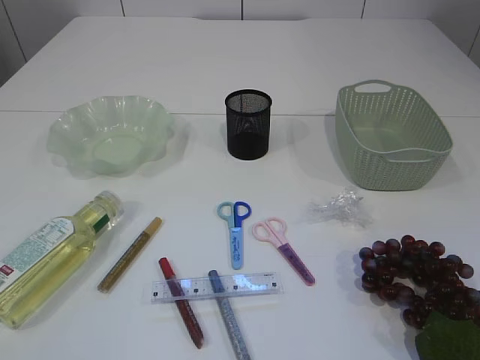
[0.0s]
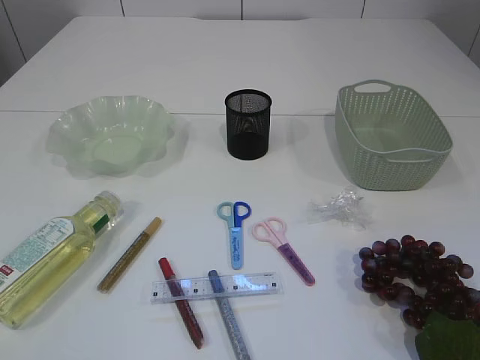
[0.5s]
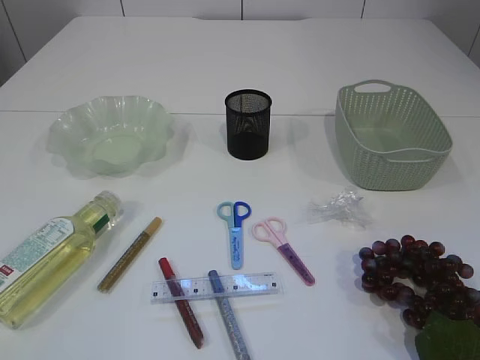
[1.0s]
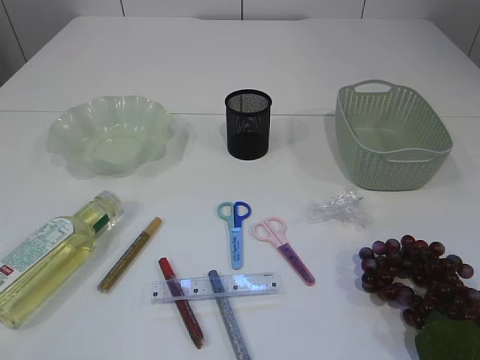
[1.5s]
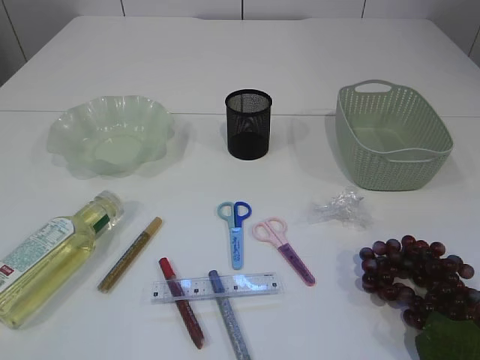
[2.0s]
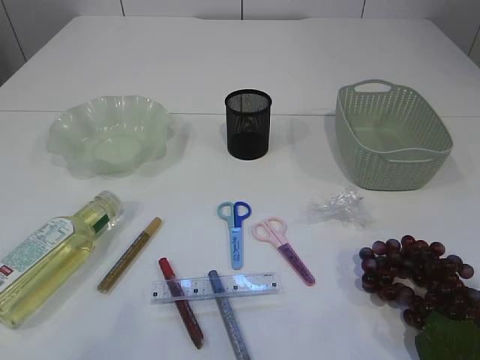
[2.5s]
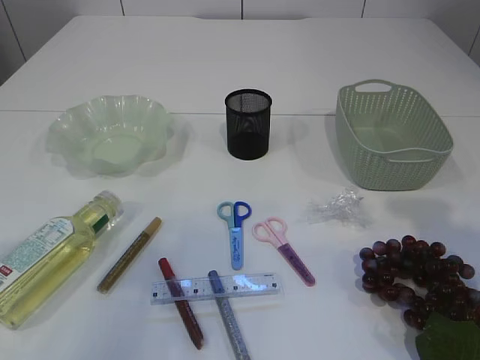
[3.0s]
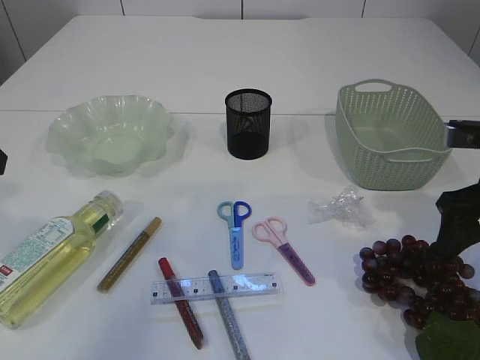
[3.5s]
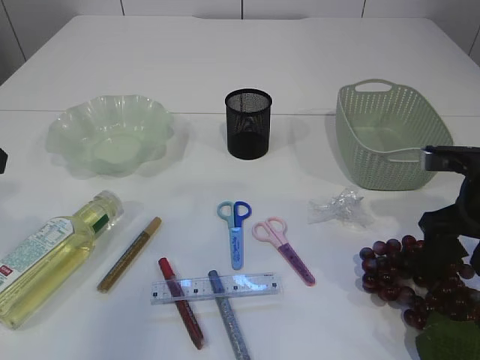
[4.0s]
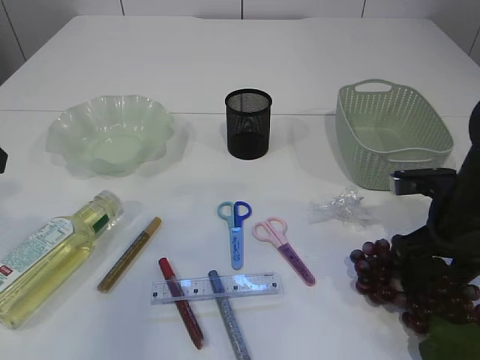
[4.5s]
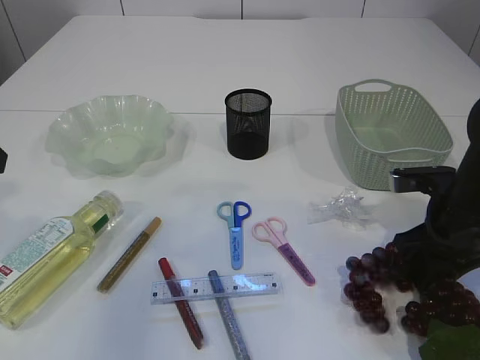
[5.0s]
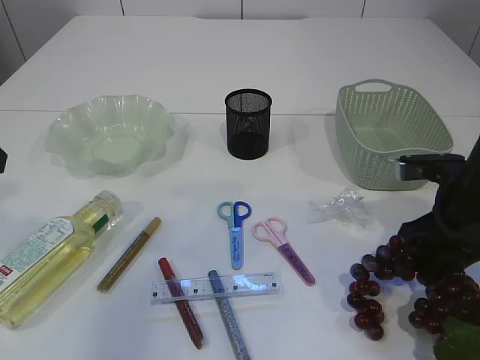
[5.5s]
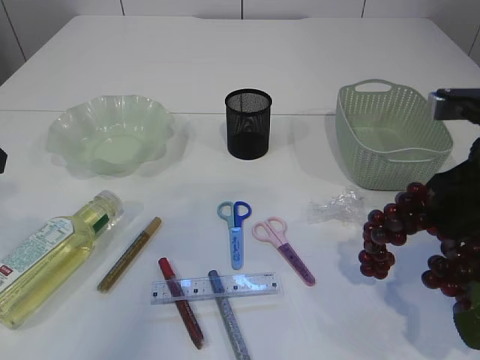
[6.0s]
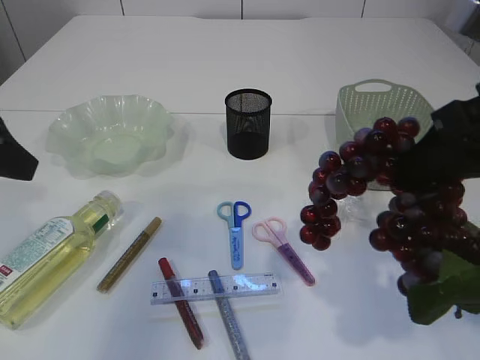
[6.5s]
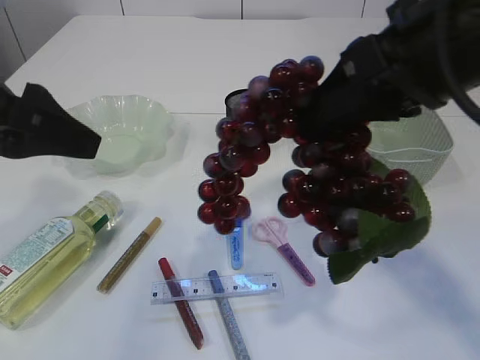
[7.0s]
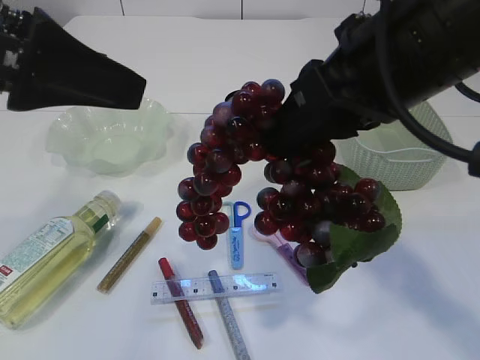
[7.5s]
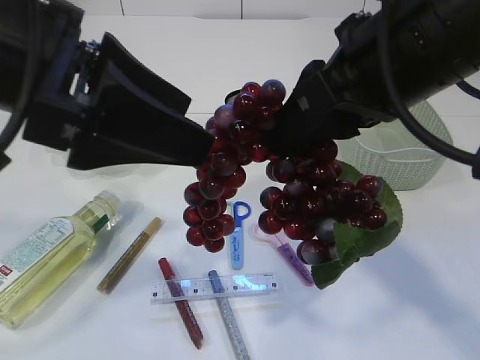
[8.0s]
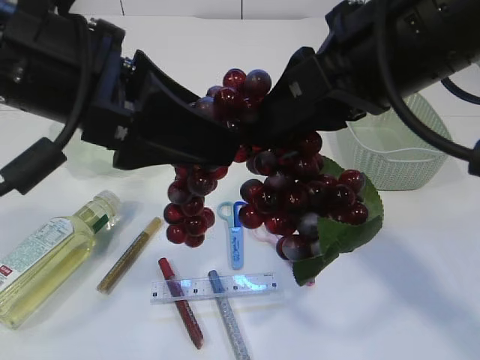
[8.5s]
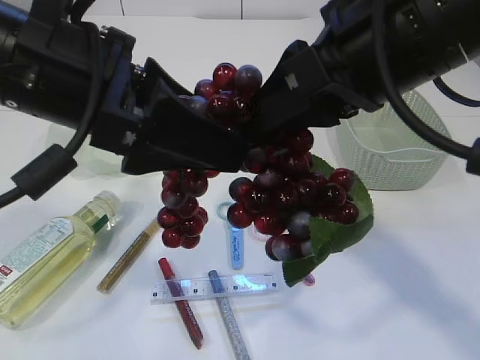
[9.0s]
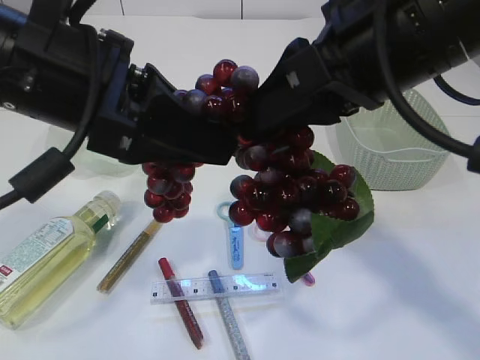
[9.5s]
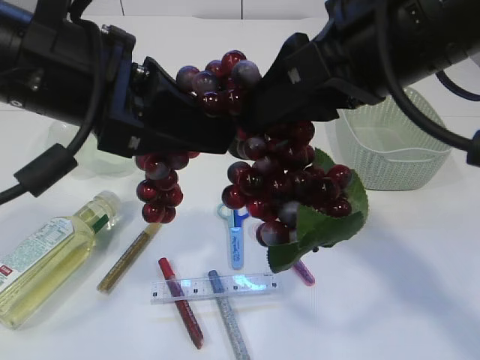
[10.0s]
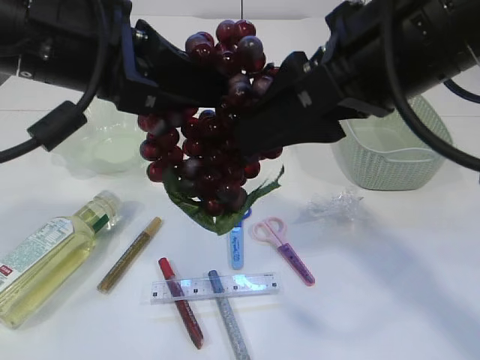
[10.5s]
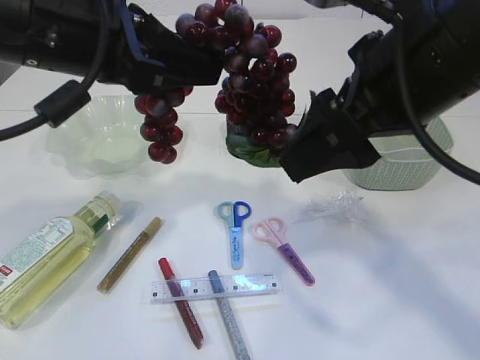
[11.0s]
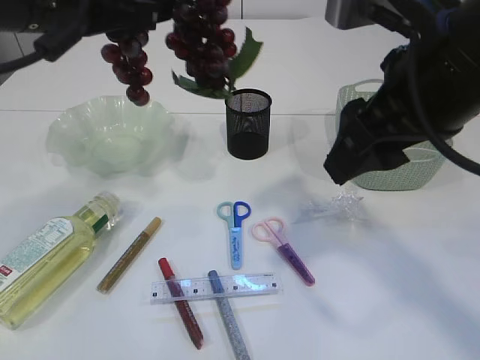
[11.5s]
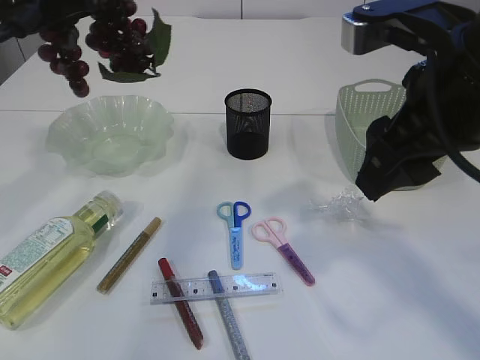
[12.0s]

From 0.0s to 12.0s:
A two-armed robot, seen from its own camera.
Step, from 0.0s to 6.0s: Pick up the grapes.
Step, from 6.5s to 11.0s: Hand over the grapes.
From 2.0s to 4.0s: The grippers both shift forward by approximately 30 cm.
From 4.0s to 6.0s: The right gripper moves upward, approximately 5 cm, and closes up.
From 6.0s to 8.0s: The left gripper shifts about 15 cm to the right, while the right gripper heads to the left and upward, covering approximately 15 cm.
From 8.0s to 10.0s: The left gripper closes up.
From 10.0s to 12.0s: The right gripper shifts by approximately 5 cm. The left gripper heads forward and to the left, covering approximately 15 cm.

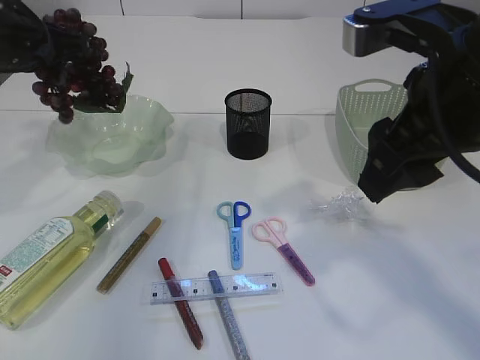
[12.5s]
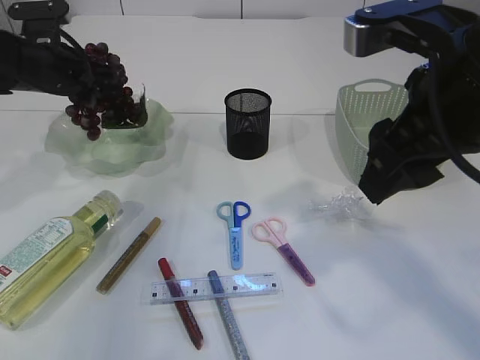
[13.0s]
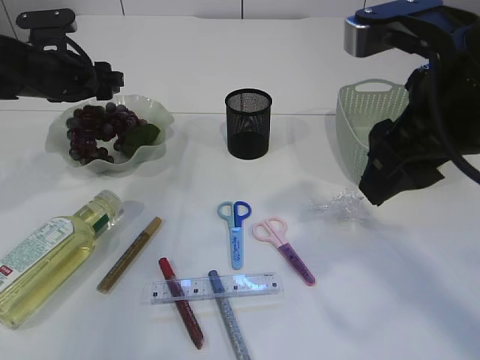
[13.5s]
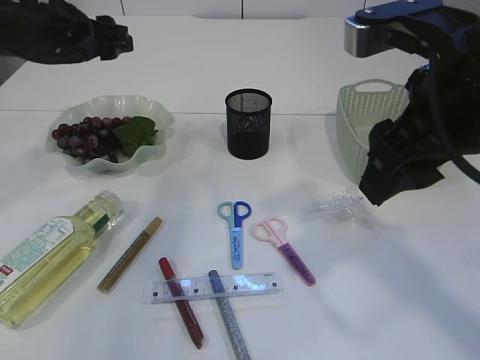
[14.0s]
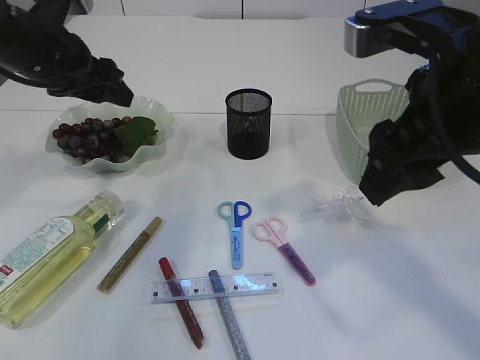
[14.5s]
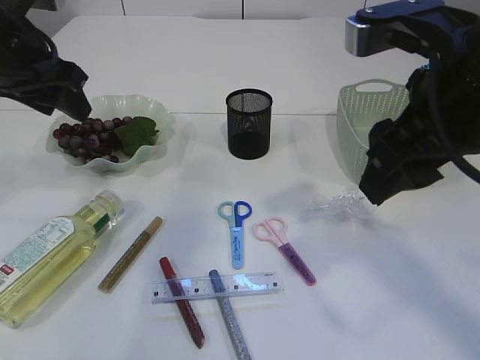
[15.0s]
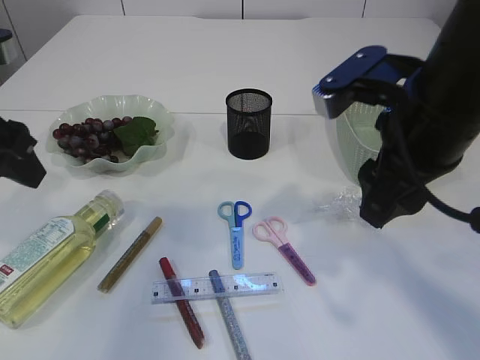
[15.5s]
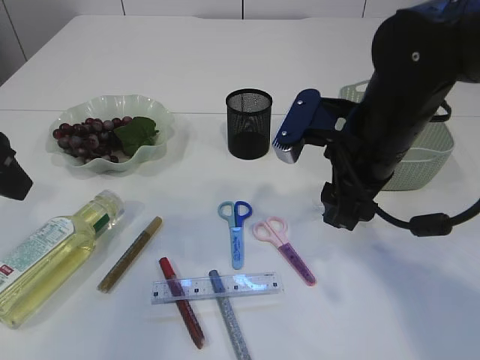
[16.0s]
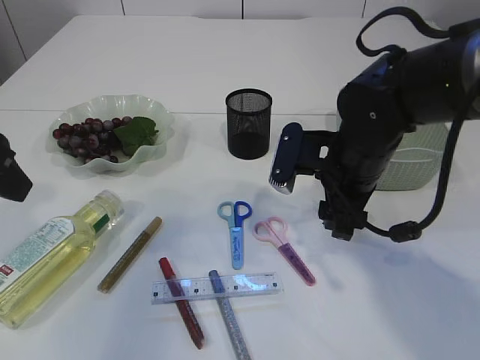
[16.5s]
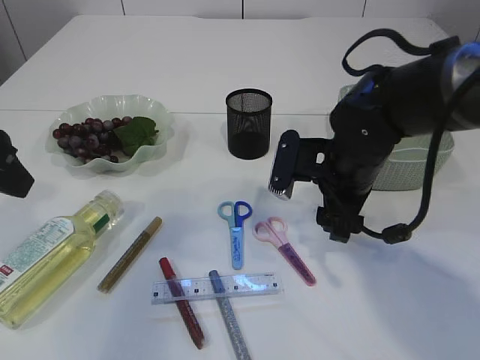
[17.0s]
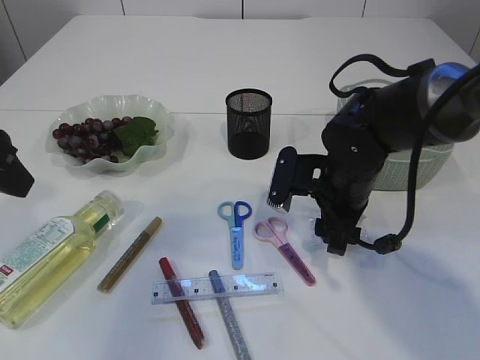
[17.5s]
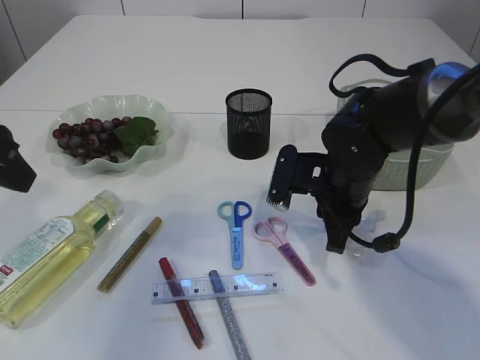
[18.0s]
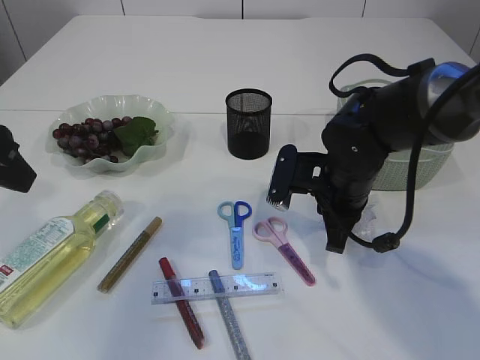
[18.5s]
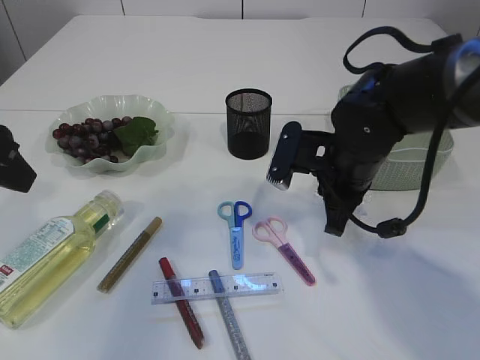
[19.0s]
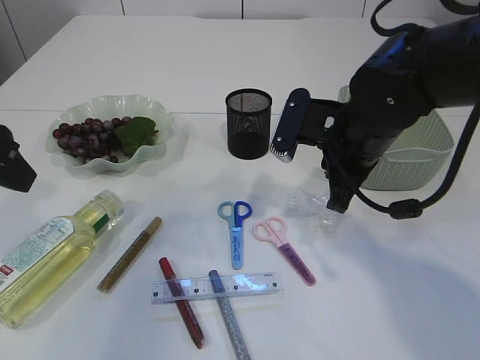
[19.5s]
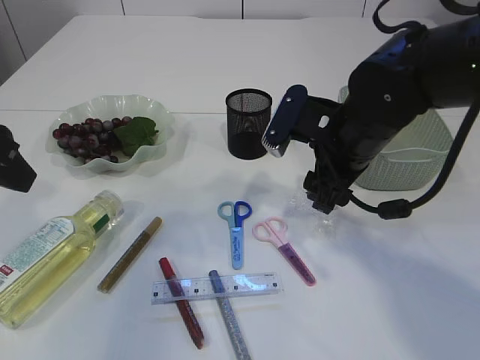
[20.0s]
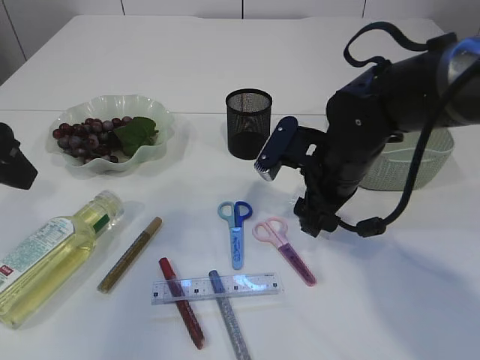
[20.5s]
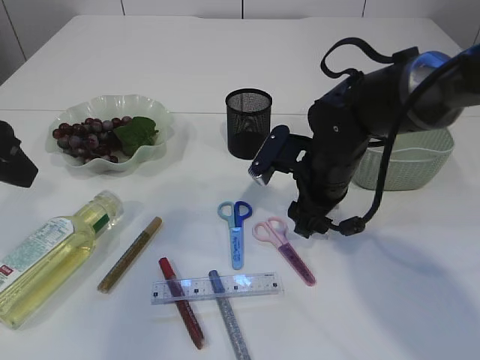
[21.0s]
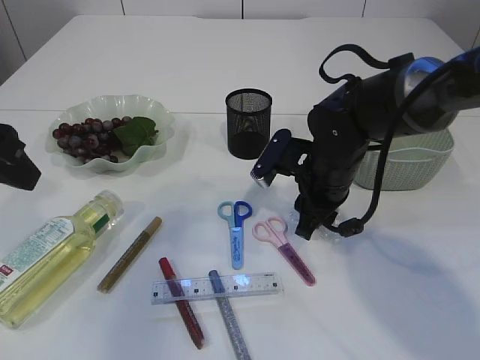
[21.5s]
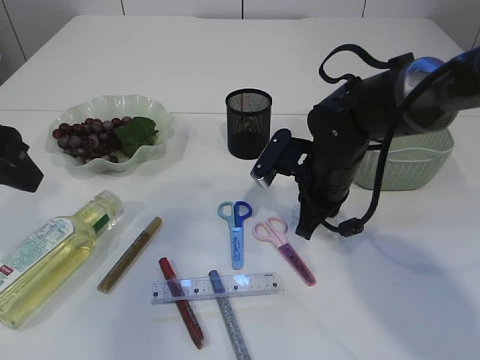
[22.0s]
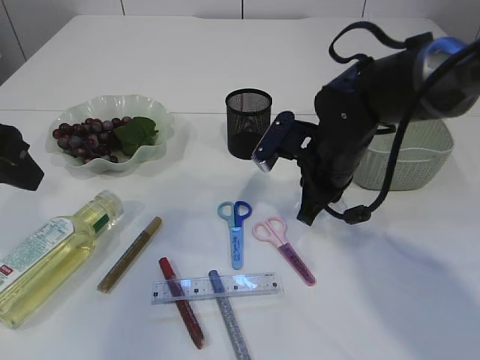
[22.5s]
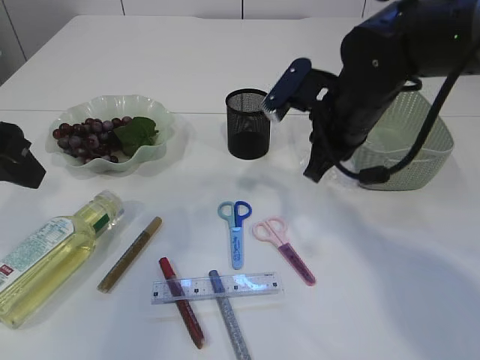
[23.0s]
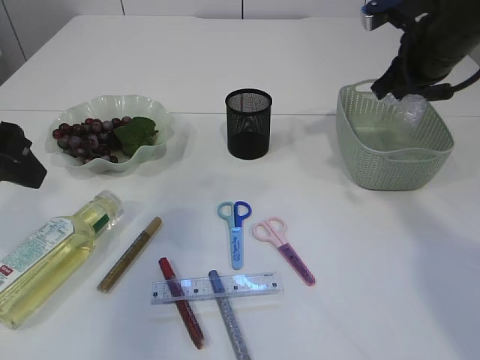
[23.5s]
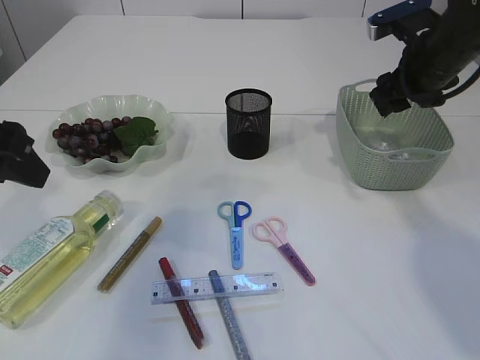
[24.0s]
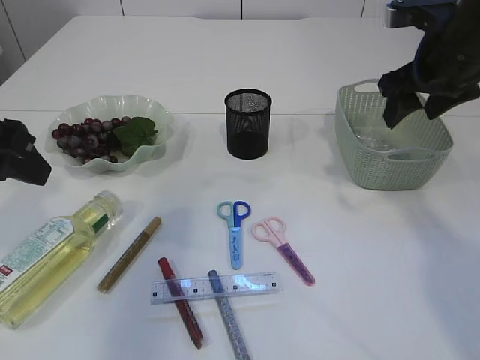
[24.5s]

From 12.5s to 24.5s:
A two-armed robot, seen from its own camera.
Step, from 12.5s to 14.0s: Place the grapes in the plate.
Step, from 14.5s to 22.5s: Pick up the plastic.
From 12.5s to 14.5s: The left gripper opens its fingers.
From 14.5s to 16.5s: The left gripper shifts approximately 15 cm backward; the right gripper goes roughly 20 cm downward and forward.
From 16.5s to 18.5s: The right gripper closes its fingers.
From 18.5s to 20.5s: The right gripper opens its fingers.
From 20.5s to 22.5s: The right gripper closes its fingers.
From 22.5s to 24.5s: The right gripper is displaced to the right and upward by roughly 15 cm, and opens its fingers.

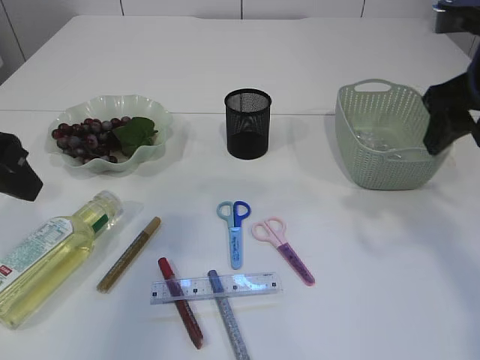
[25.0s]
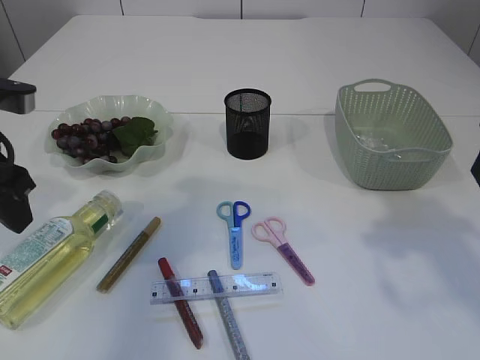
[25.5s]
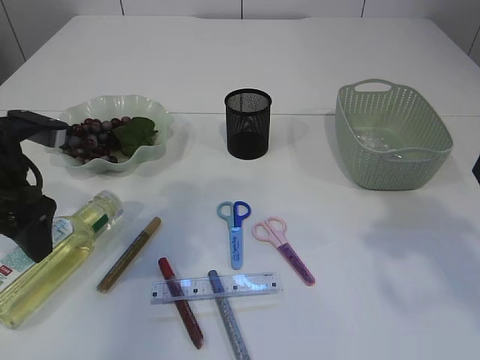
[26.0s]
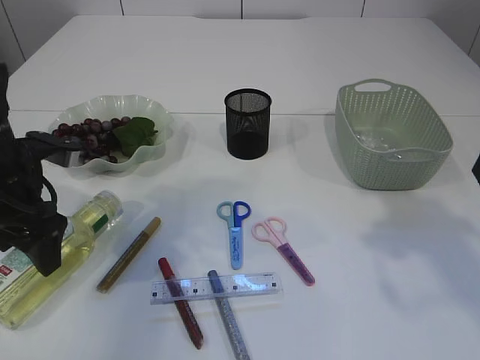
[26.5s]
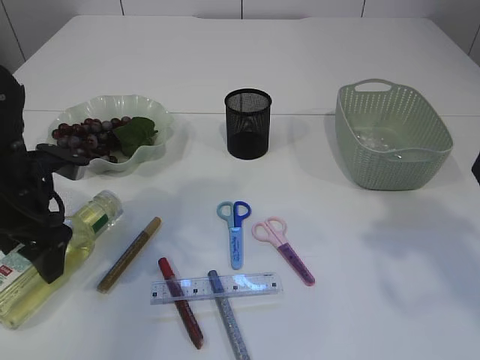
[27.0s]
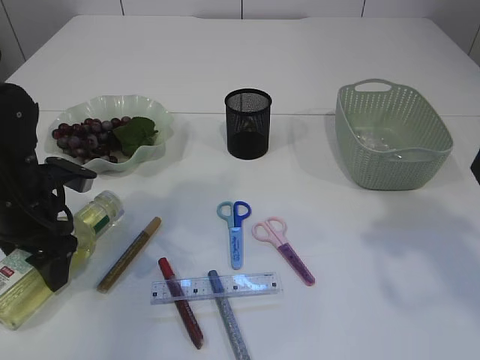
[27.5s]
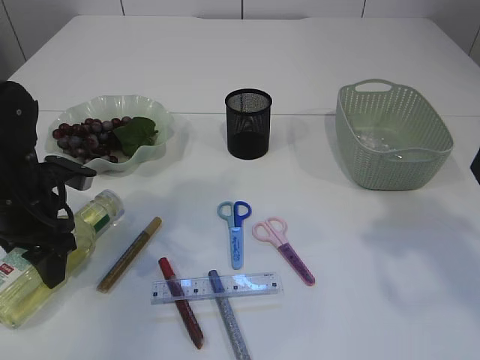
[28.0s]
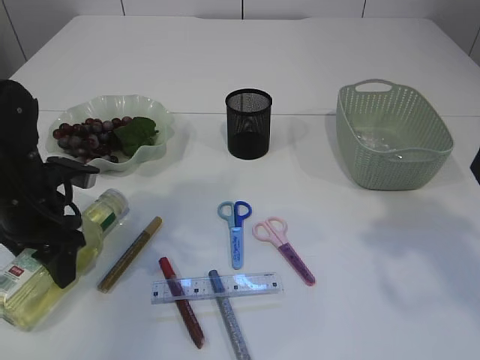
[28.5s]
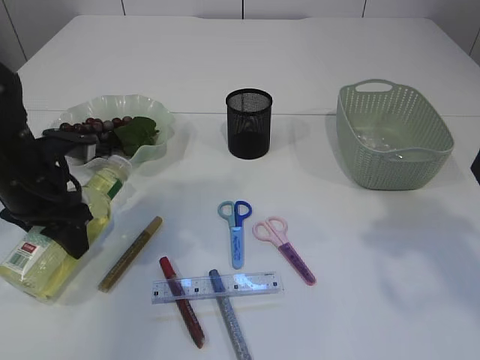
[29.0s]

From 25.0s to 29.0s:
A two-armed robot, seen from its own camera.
From 25.0s to 27.0s: The left gripper heads downward and forward, covering about 15 cm, and opens its fingers, while the right gripper shifts about 10 cm backward.
From 27.0s to 29.0s: The grippers stay close to where they were, moving slightly.
